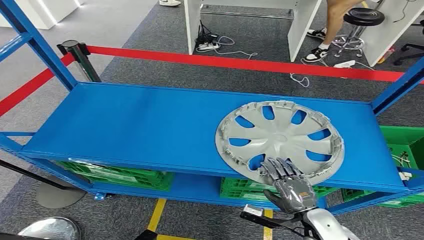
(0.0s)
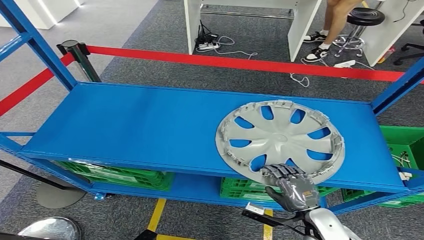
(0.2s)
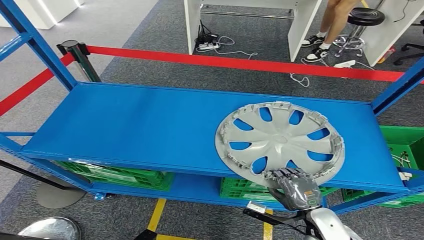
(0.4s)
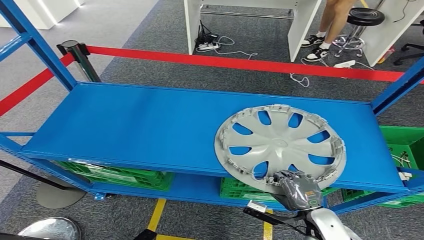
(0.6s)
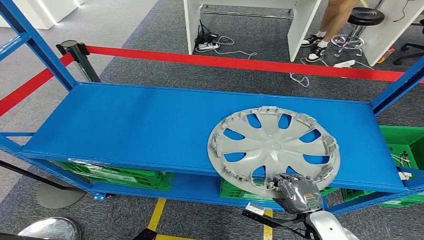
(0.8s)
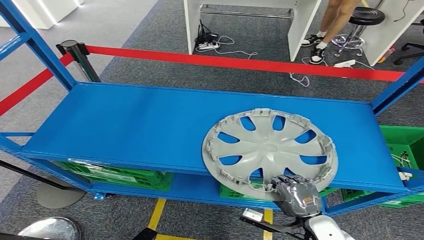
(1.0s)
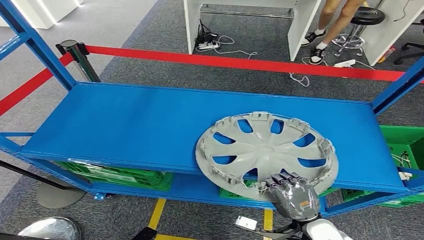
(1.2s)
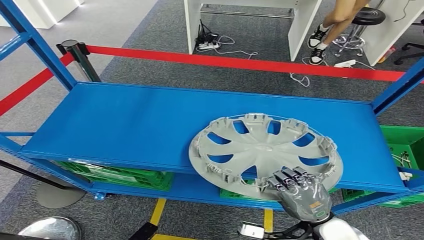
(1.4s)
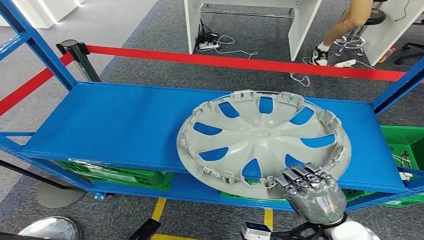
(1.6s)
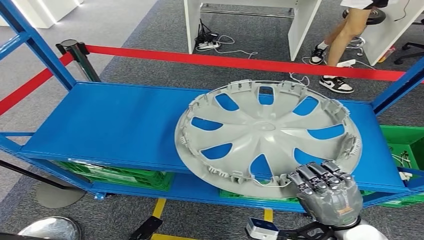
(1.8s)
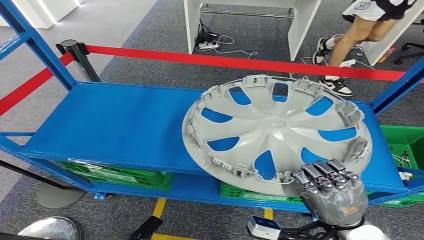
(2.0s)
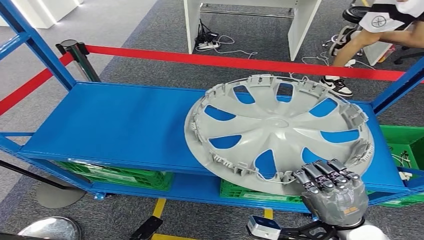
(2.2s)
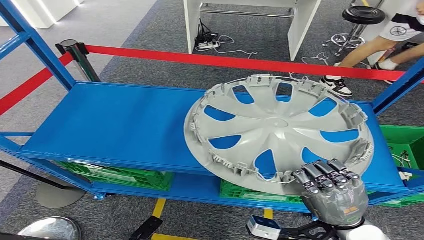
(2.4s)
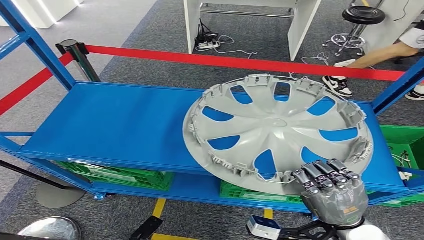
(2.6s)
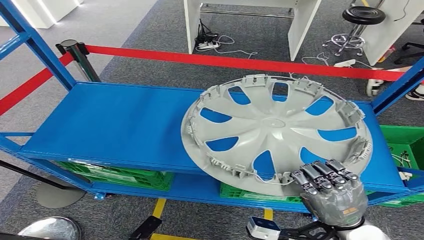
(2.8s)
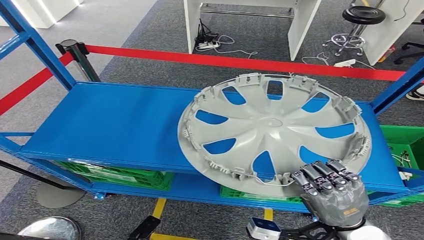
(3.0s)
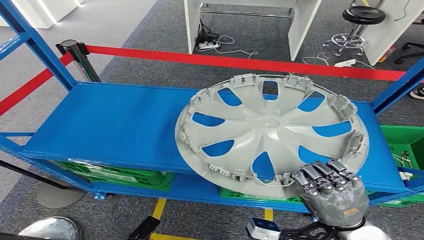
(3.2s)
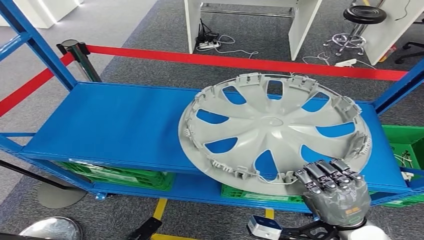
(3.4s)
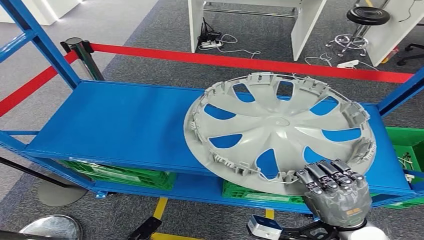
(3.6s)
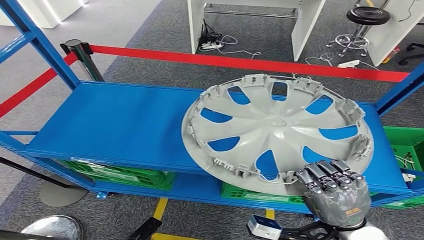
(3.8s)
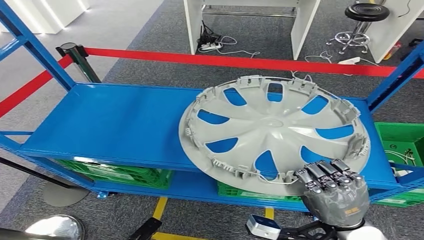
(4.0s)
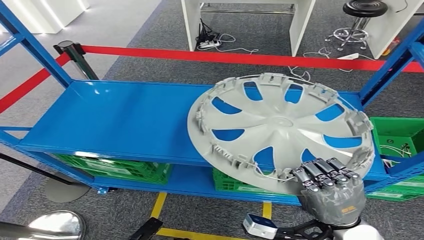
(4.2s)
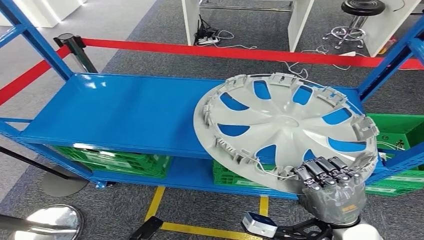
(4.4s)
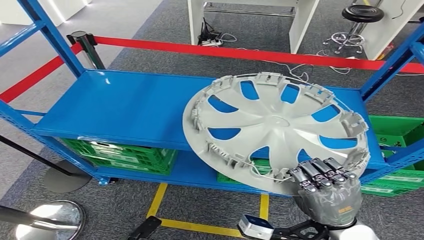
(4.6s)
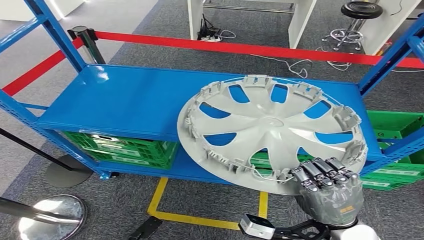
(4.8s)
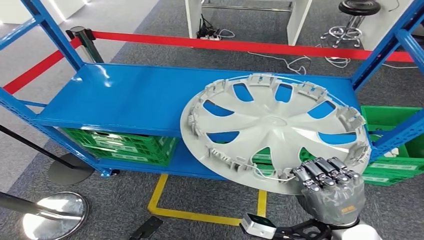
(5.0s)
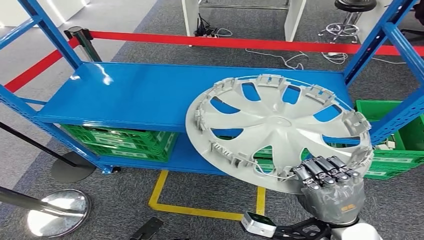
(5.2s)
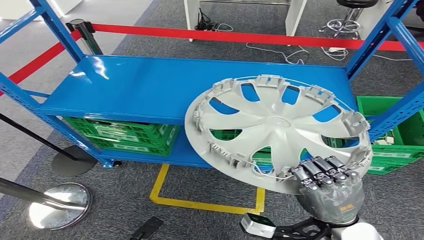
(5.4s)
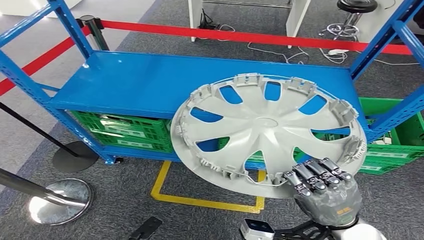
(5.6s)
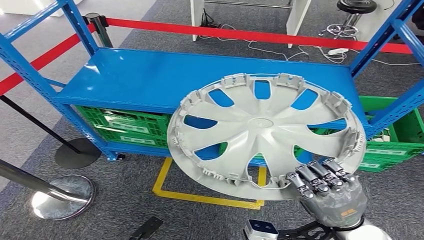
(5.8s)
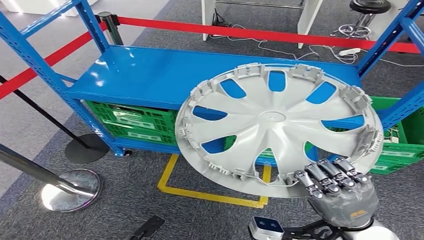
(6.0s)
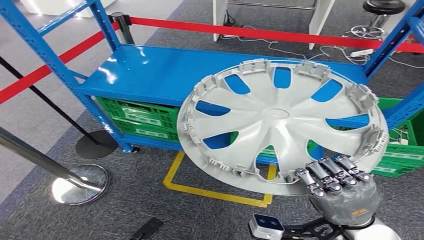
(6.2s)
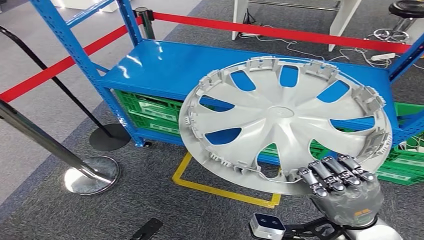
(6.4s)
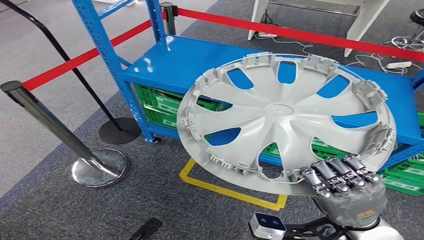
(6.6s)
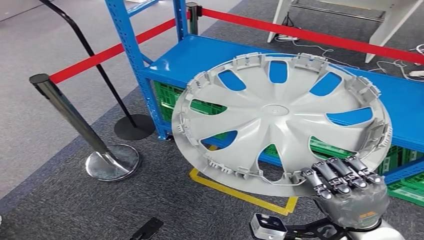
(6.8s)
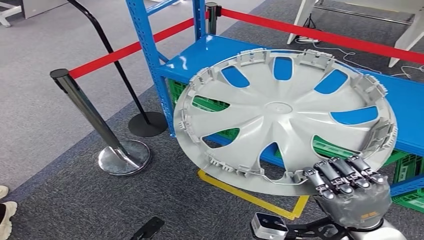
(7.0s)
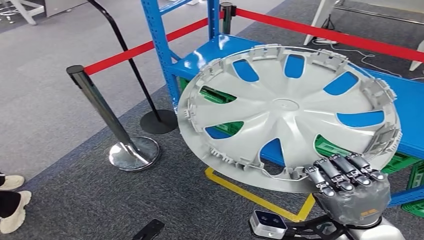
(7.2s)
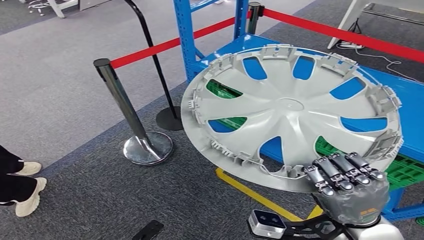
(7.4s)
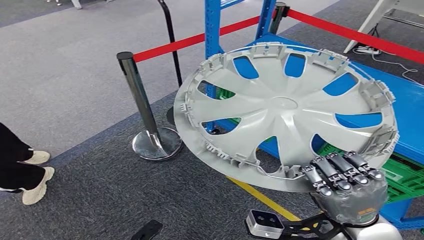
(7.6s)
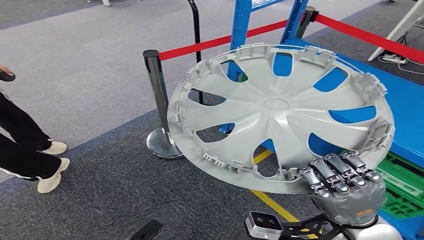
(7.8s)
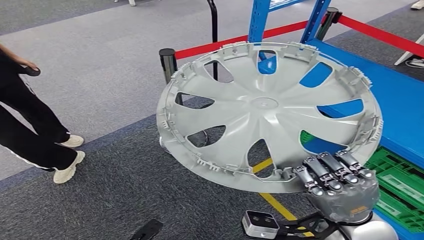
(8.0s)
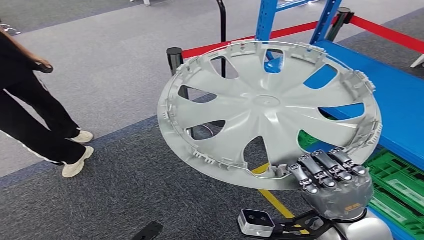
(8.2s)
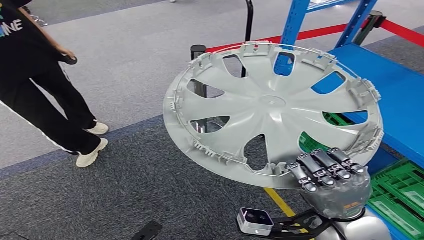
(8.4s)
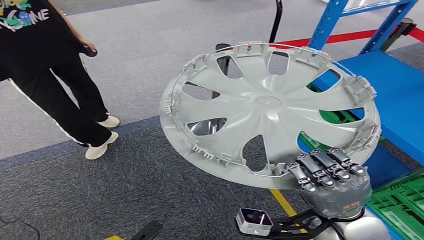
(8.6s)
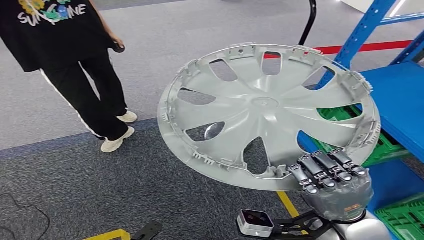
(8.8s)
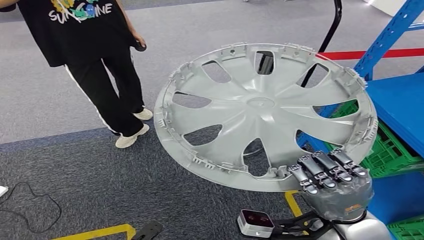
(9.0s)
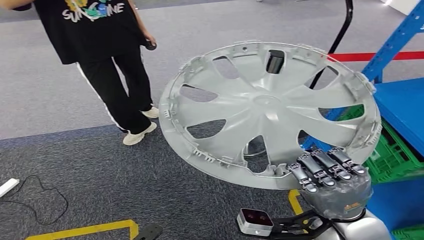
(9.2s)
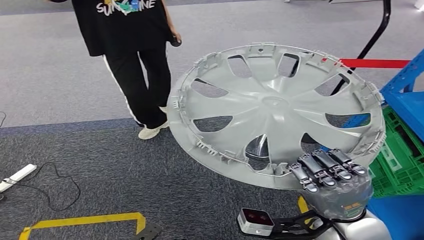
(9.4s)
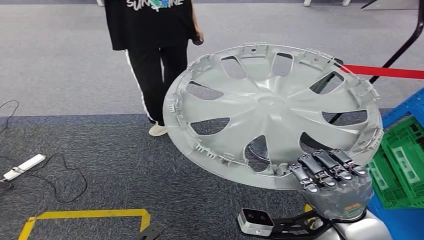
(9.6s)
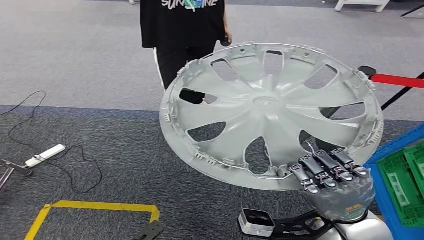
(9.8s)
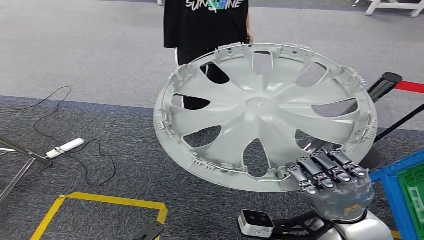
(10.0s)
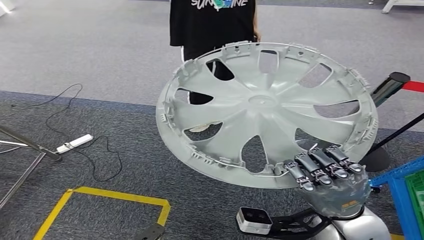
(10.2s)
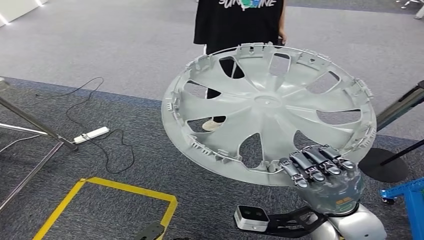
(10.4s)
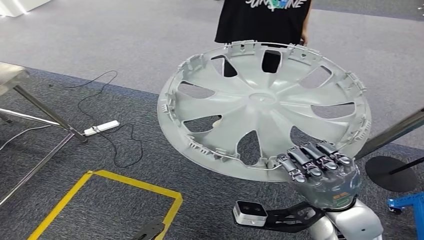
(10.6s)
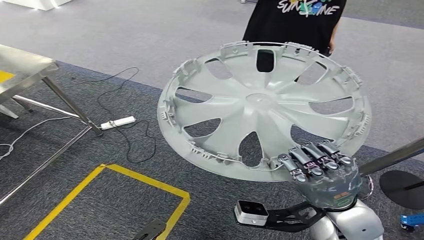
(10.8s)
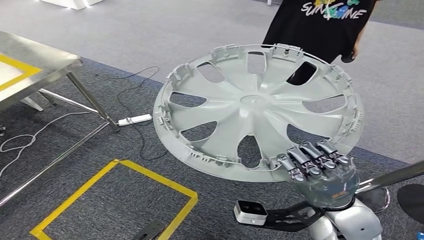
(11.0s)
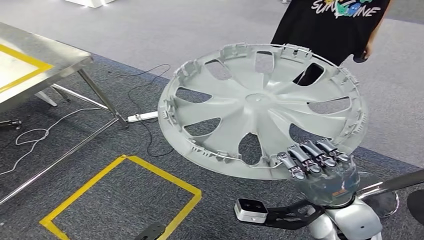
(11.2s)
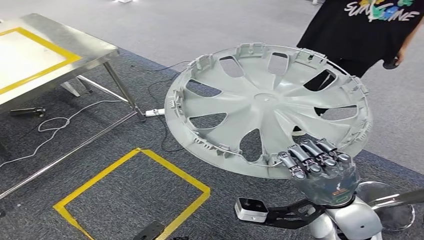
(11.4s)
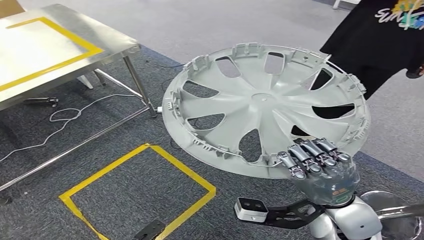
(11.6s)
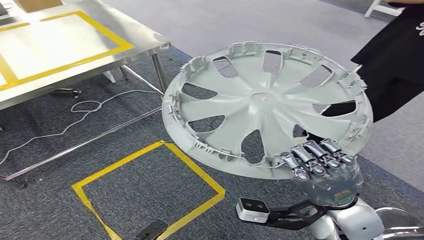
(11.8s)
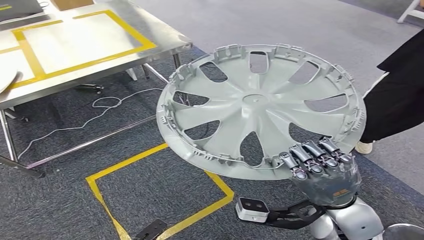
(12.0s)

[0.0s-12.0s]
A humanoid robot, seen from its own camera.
Step, 0.0s to 5.6s: Pick up the small component from the shelf.
1.6s to 3.0s: The hands move only a little.

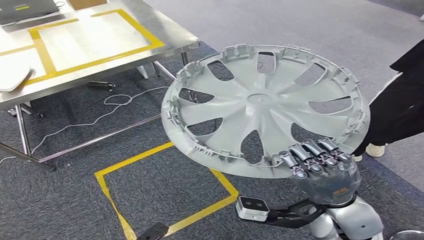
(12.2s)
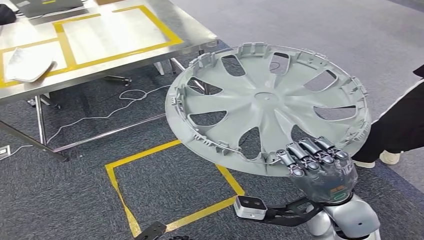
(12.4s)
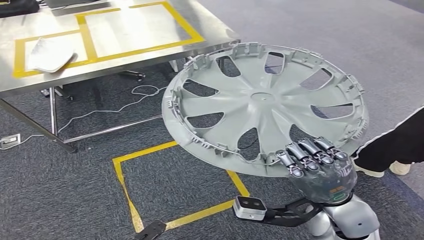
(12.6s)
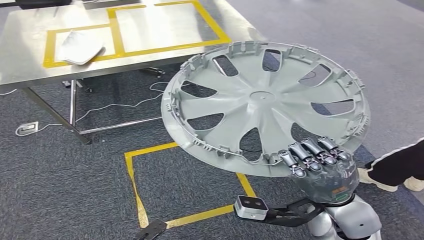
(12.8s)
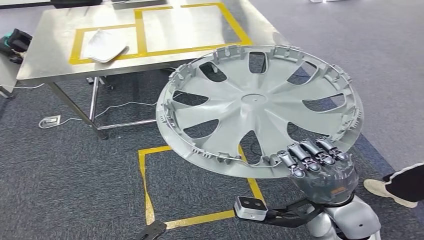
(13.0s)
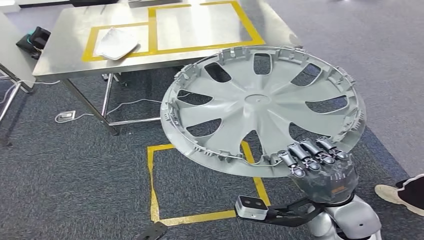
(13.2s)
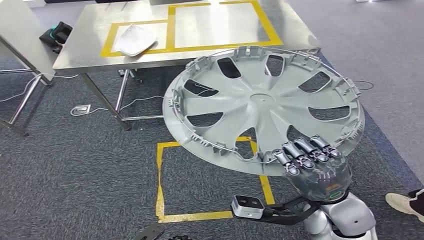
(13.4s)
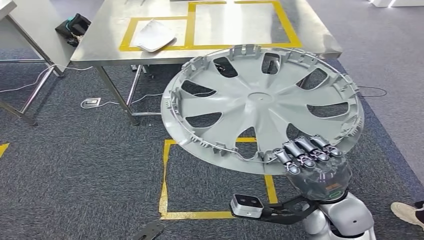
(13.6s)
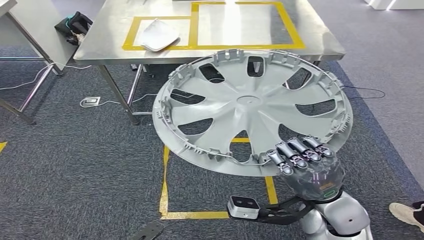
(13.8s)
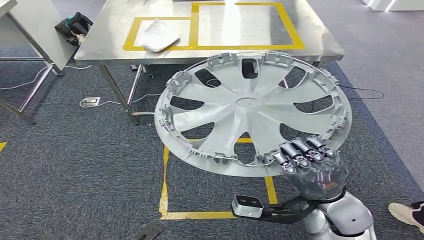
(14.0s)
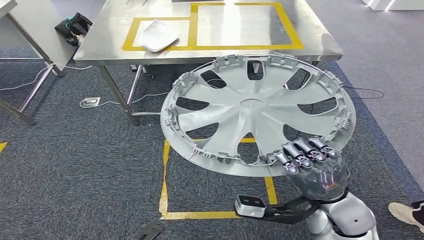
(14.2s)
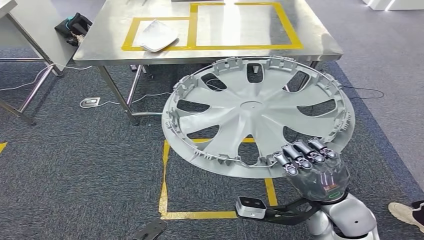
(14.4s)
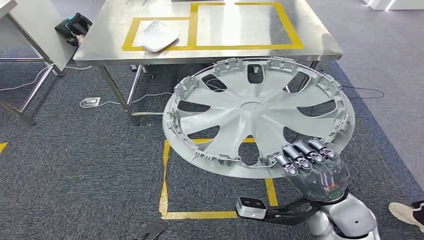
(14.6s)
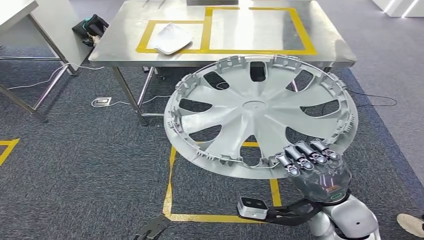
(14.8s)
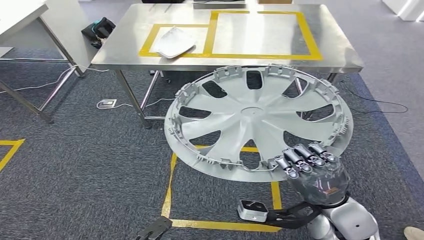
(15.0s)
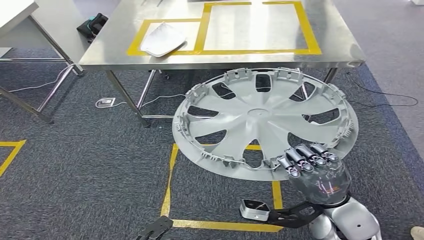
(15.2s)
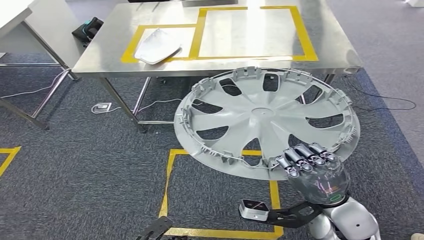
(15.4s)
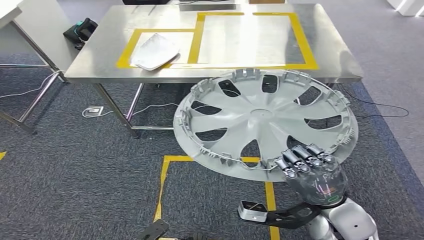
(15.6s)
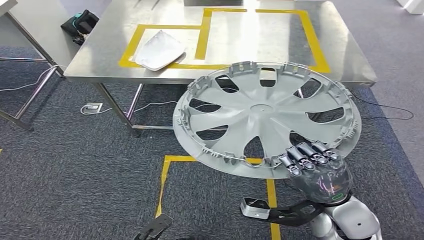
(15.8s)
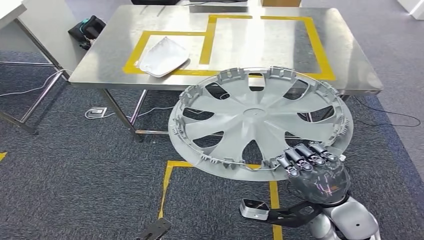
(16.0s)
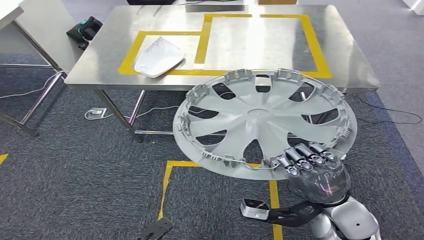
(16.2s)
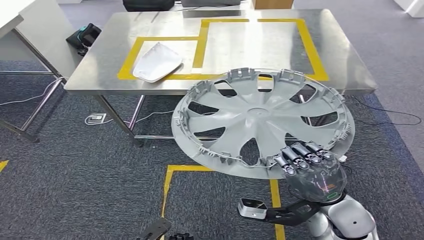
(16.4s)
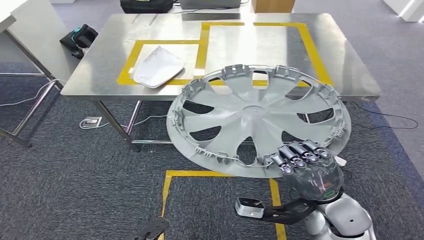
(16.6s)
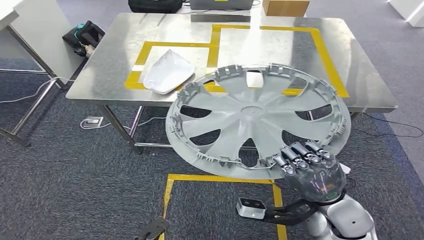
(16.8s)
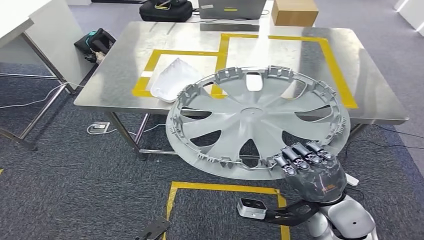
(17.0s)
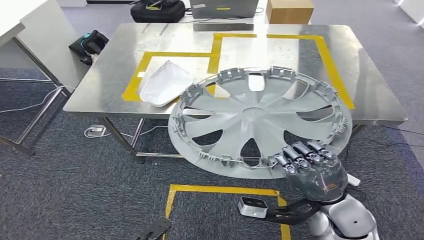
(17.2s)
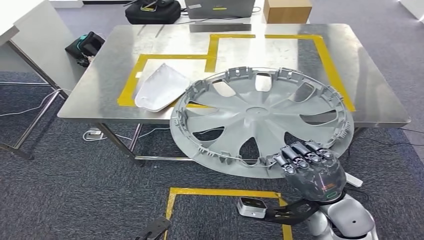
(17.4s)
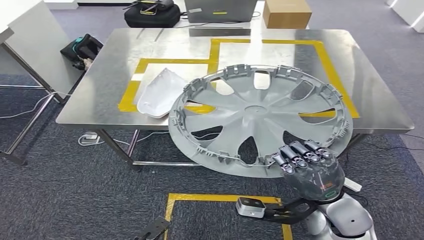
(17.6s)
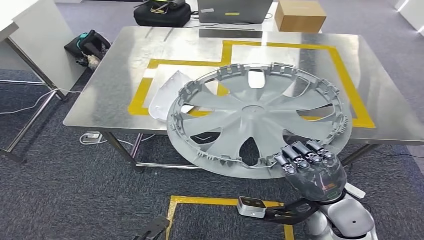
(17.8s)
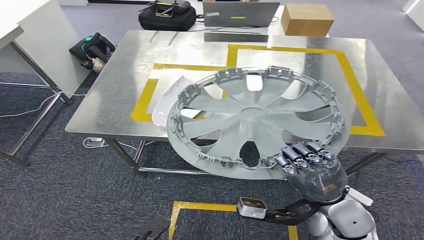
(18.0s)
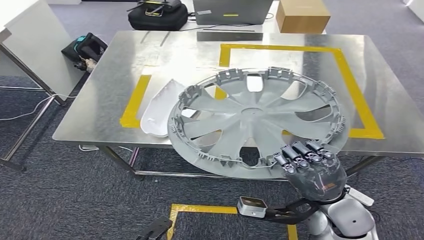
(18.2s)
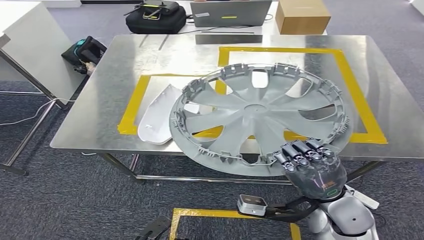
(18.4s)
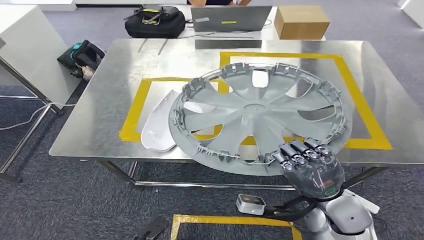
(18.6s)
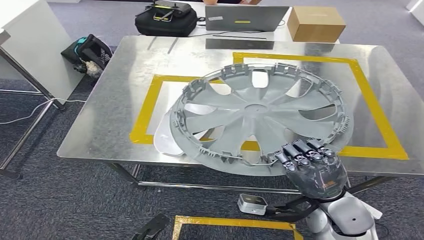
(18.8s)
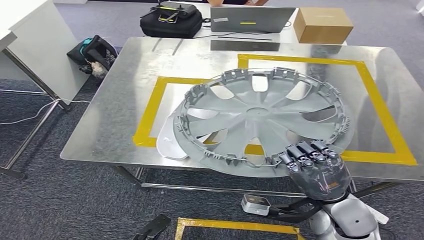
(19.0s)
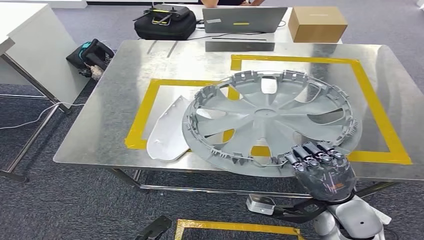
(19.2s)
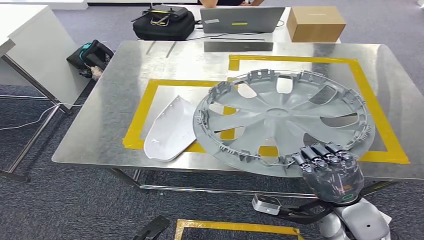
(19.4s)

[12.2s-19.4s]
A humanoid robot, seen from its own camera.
Step, 12.2s to 18.4s: Move the small component to the workbench.
